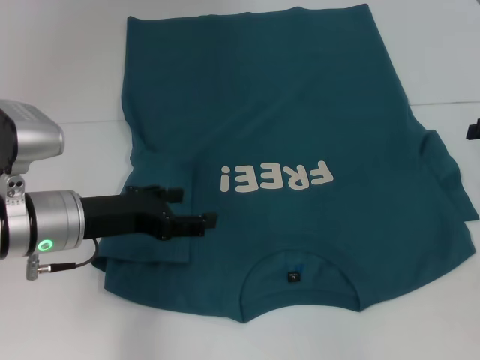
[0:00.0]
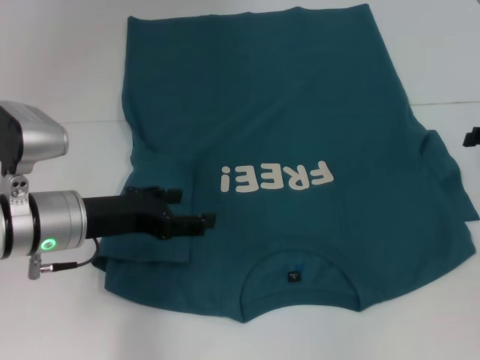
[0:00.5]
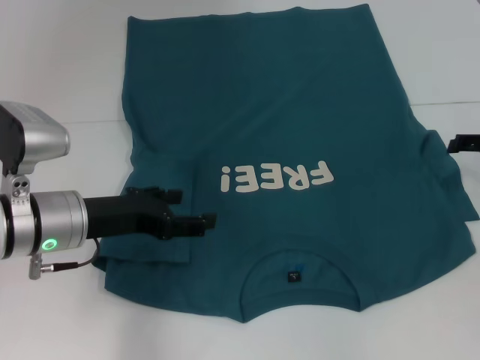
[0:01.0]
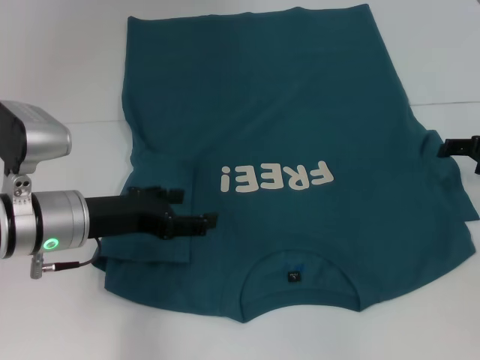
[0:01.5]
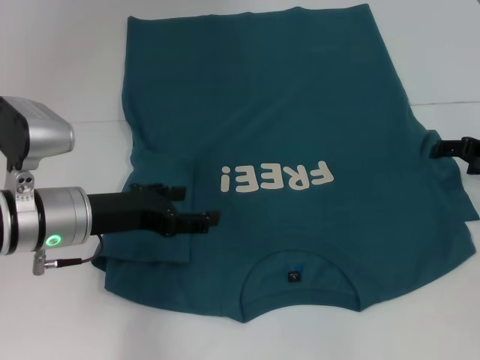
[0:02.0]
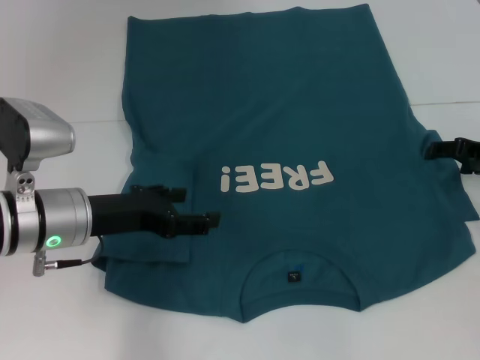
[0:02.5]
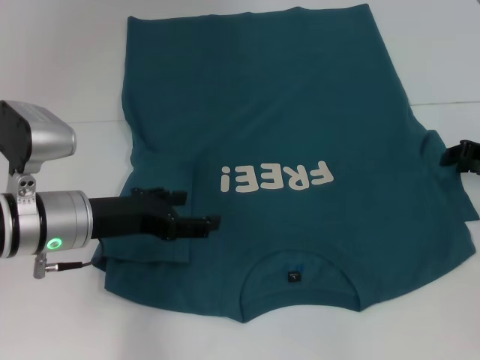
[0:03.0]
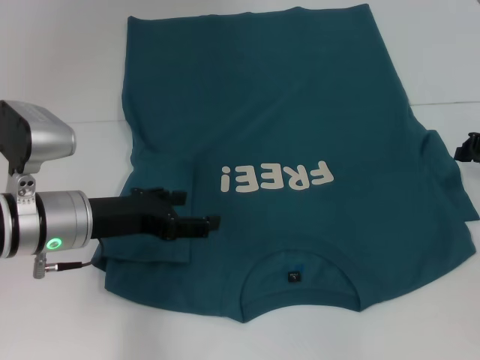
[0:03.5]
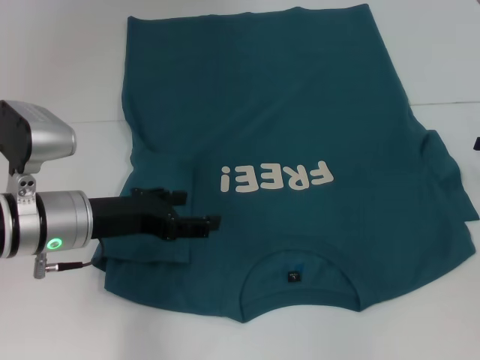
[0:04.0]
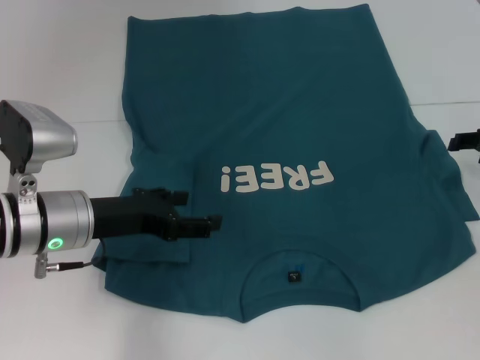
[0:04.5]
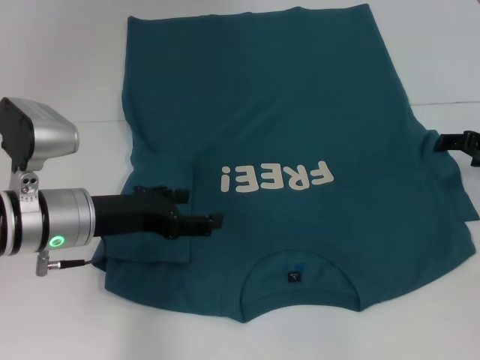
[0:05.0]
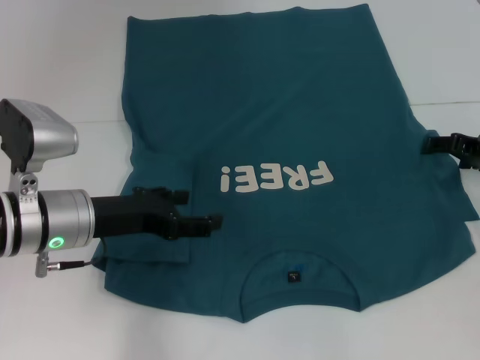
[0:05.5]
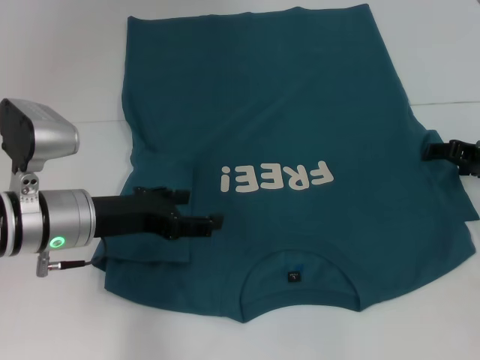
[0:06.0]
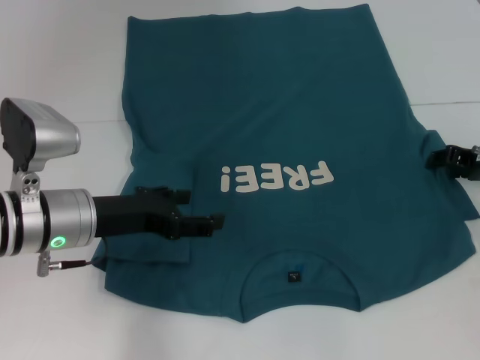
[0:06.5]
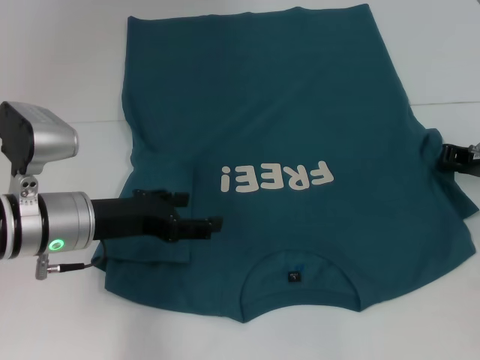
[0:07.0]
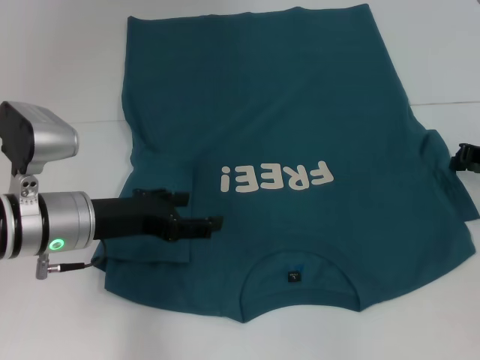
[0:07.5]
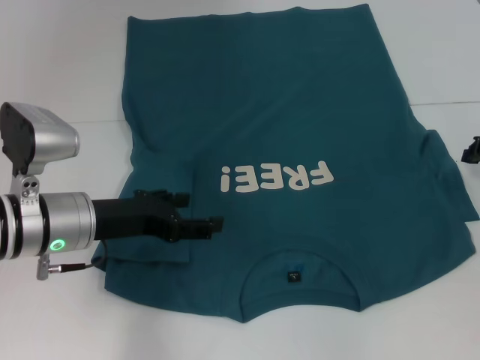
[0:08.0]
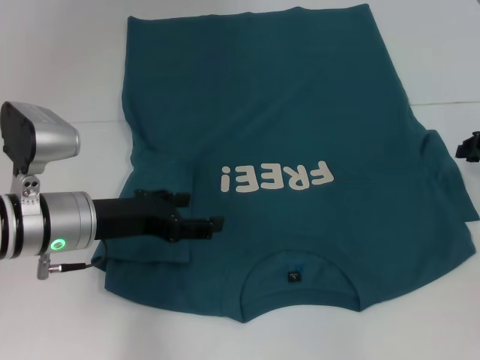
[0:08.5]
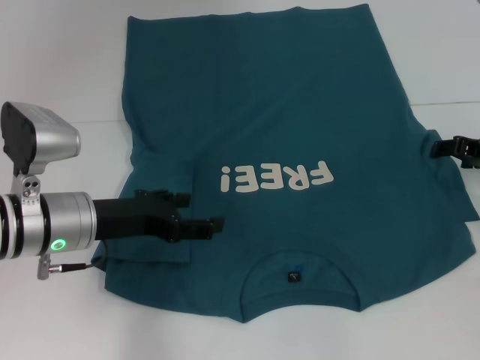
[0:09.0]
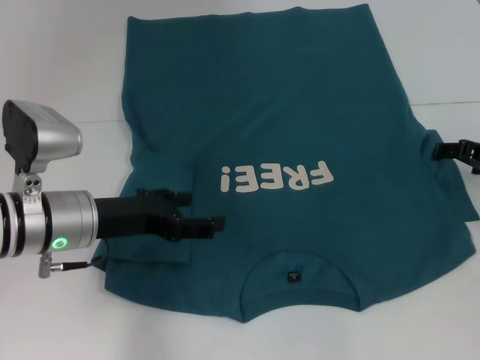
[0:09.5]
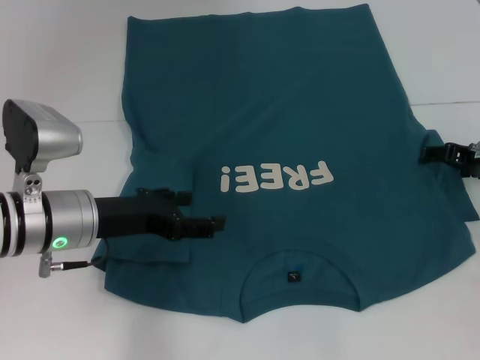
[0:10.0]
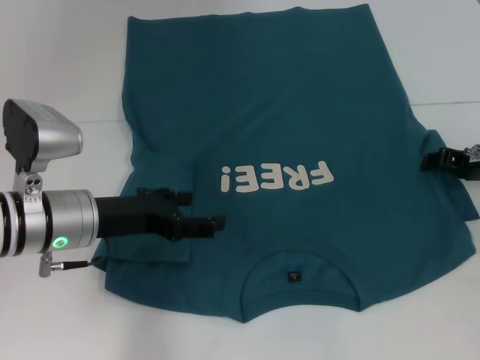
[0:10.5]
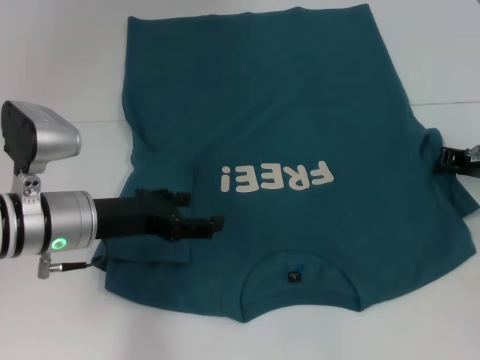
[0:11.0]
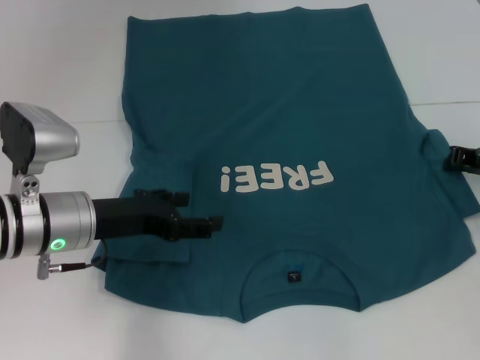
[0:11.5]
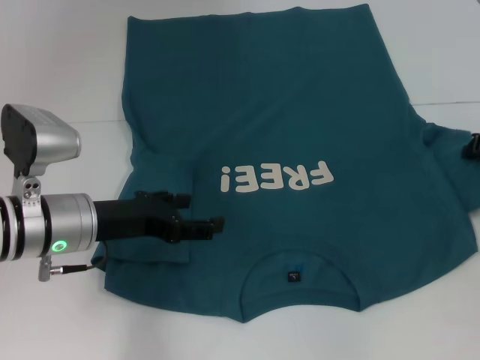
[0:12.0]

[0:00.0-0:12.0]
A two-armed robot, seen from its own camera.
0.0 to 2.0 s: The right gripper is displaced downward by roughly 5 cm.
2.0 to 4.0 s: The right gripper closes its fingers.
4.0 to 6.0 s: The right gripper shifts by approximately 5 cm, and opens up.
6.0 to 8.0 s: The right gripper closes its fingers.
8.0 to 10.0 s: The right gripper opens its fingers.
10.0 to 12.0 s: The right gripper closes.

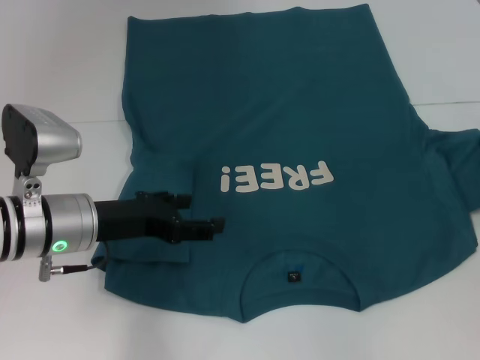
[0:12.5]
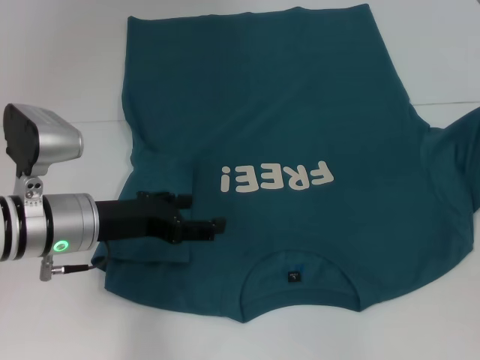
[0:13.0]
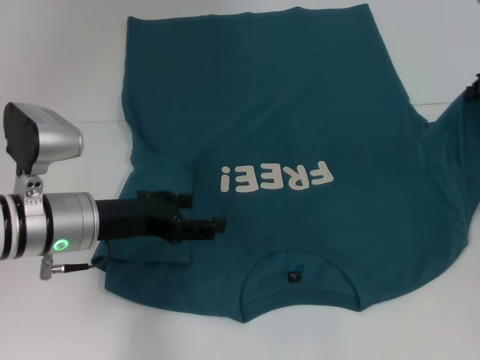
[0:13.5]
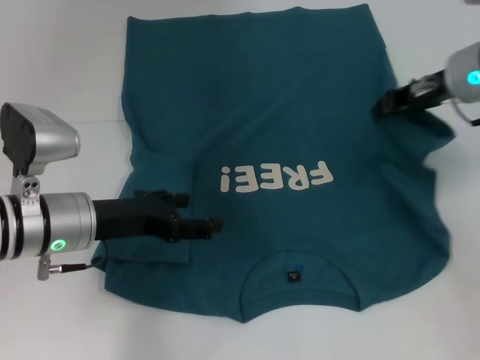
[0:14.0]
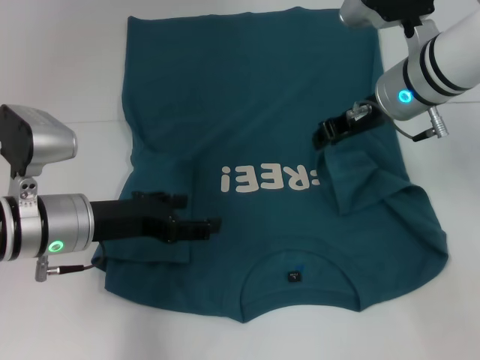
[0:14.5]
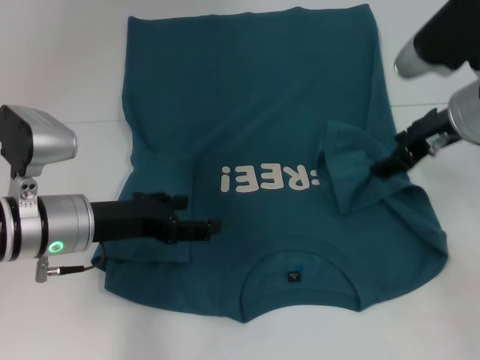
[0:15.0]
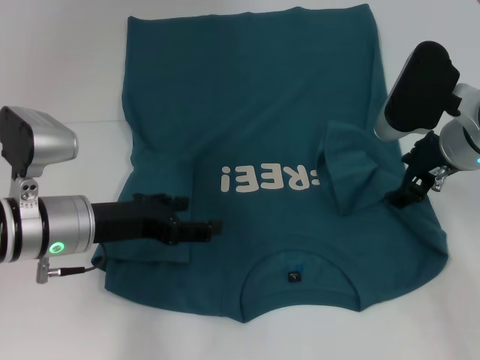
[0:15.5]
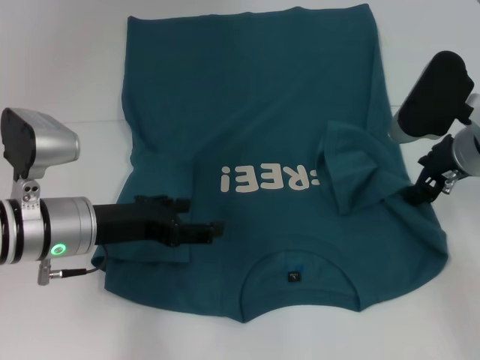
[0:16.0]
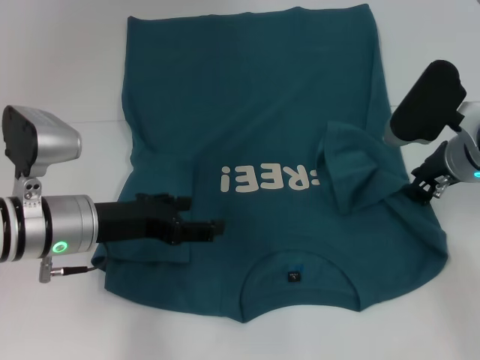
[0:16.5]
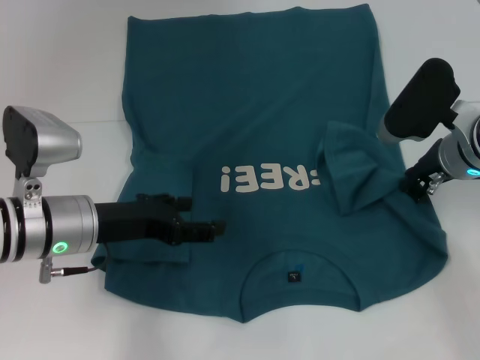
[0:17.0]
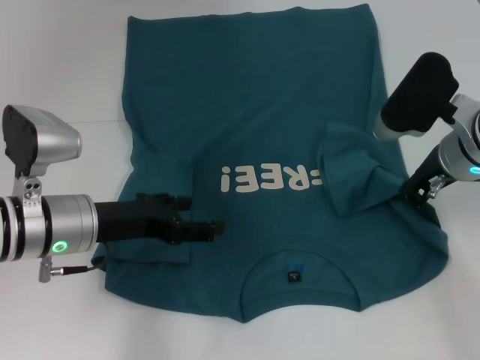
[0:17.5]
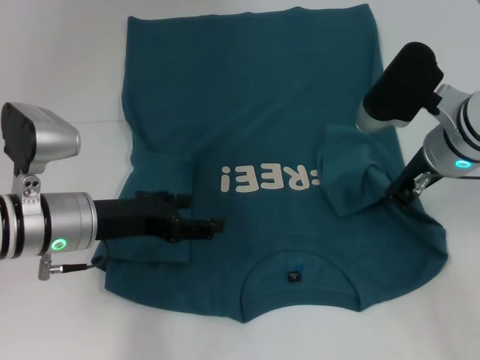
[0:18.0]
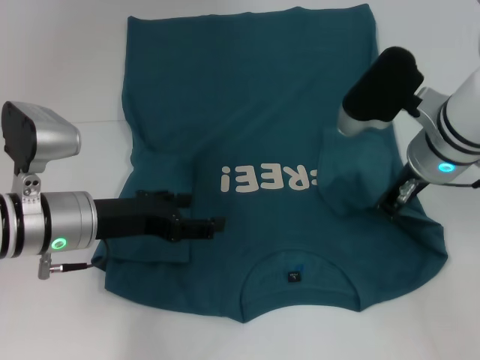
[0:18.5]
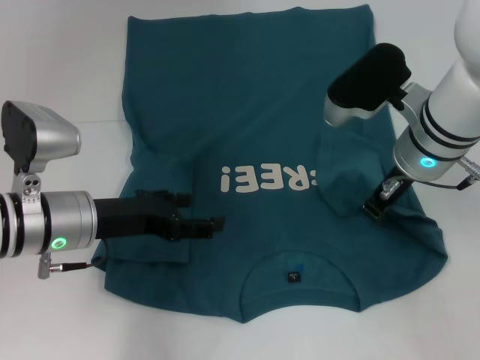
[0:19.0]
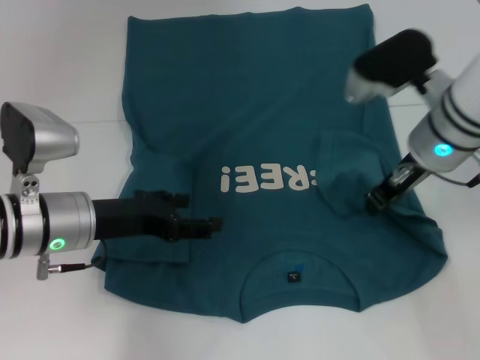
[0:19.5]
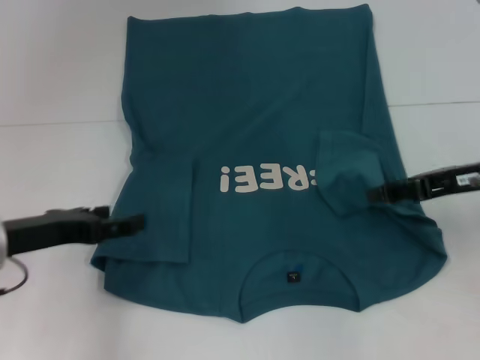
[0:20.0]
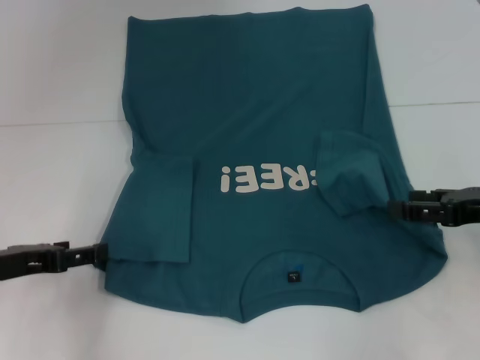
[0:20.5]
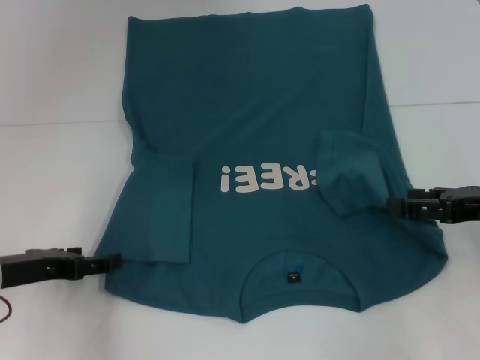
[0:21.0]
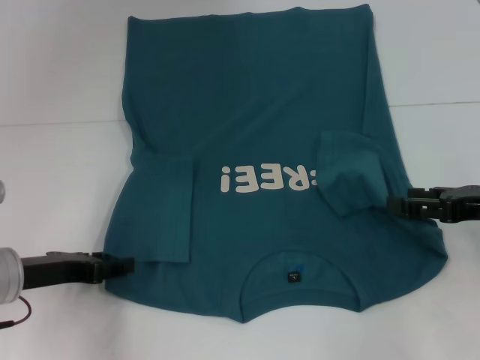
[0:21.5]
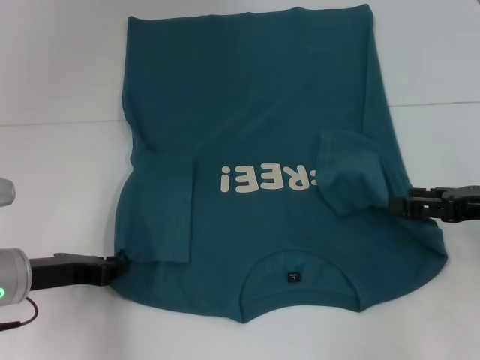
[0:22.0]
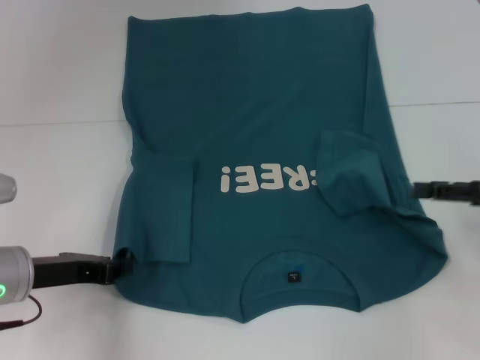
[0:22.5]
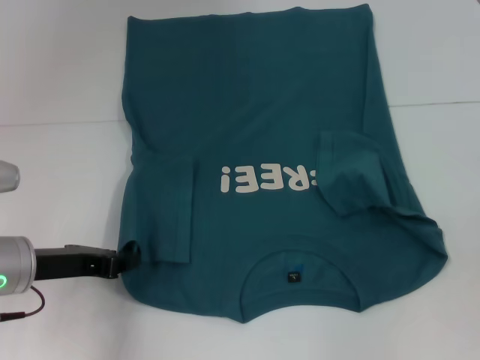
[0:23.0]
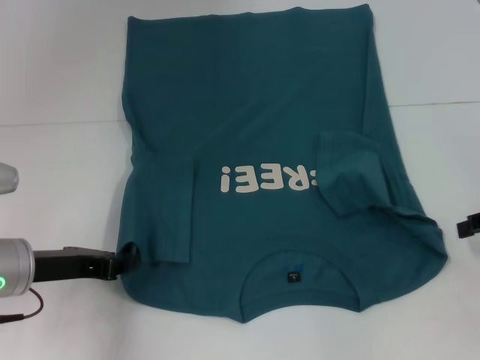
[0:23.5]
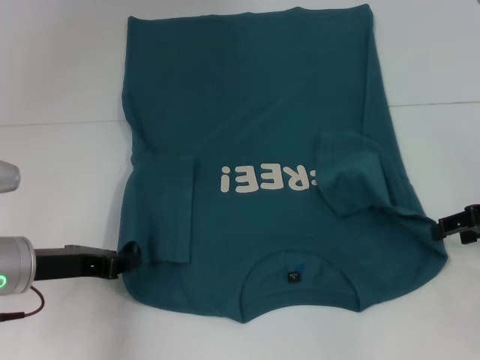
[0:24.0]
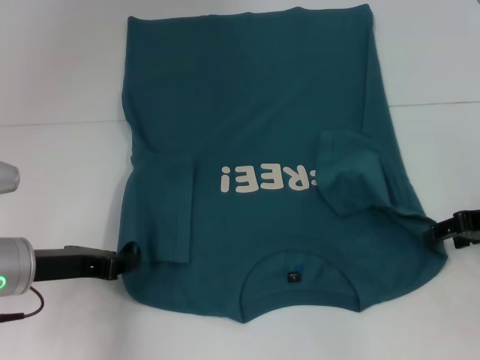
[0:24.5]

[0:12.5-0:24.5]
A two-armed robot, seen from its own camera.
Step, 12.5 to 19.5 s: Fold the bottom right sleeve to the right.
Step, 20.0 to 24.0 s: Grab the bottom left corner with your left hand.
12.5 to 14.5 s: The right gripper moves to the left, roughly 20 cm.
14.5 to 16.5 s: The right gripper shifts approximately 10 cm to the right and downward, and opens up.
16.5 to 18.5 s: The right gripper is displaced to the left by approximately 5 cm, and closes.
18.5 to 20.5 s: The right gripper goes some 15 cm to the right and backward, and opens, while the left gripper moves to the left, some 10 cm.
20.5 to 22.5 s: The left gripper closes its fingers.
22.5 to 24.5 s: The right gripper moves forward, about 5 cm.

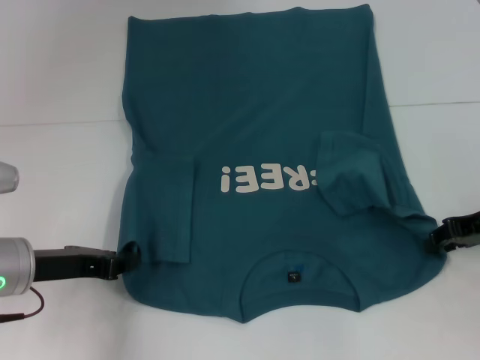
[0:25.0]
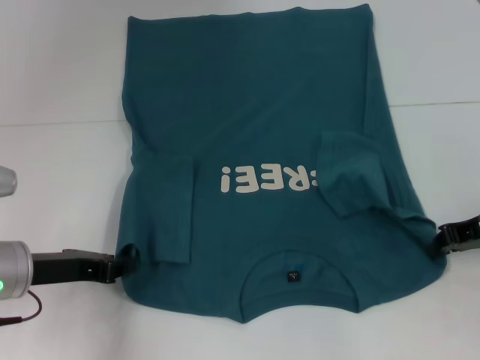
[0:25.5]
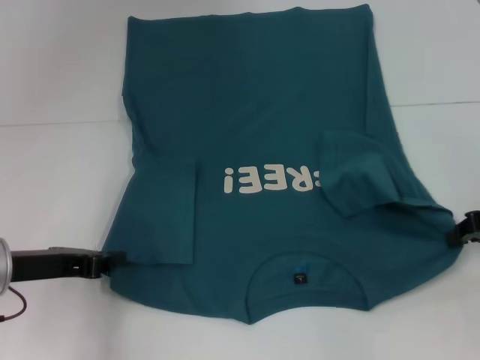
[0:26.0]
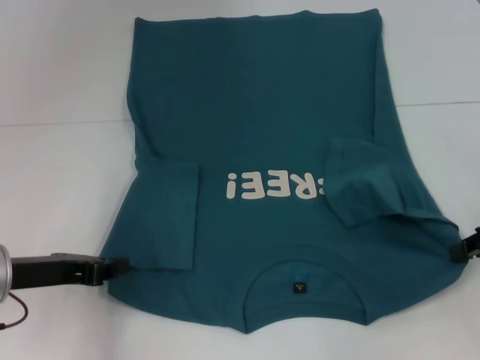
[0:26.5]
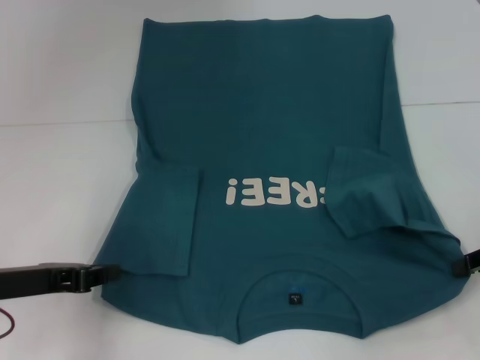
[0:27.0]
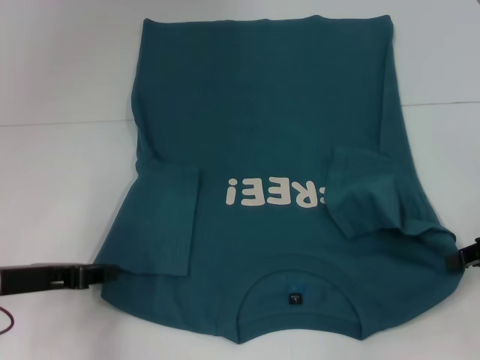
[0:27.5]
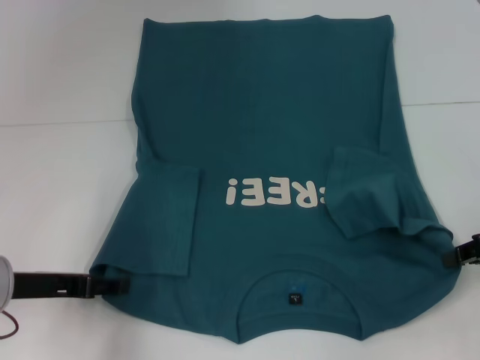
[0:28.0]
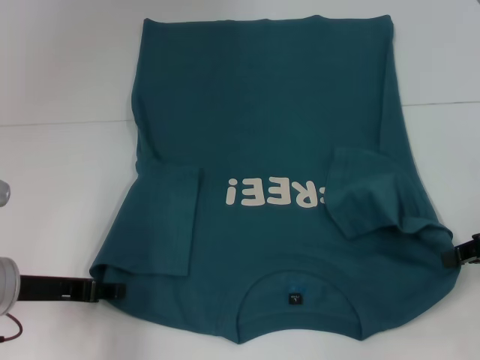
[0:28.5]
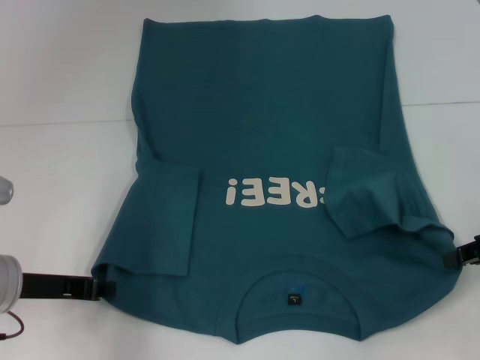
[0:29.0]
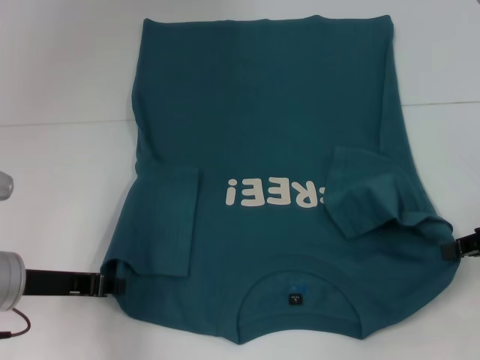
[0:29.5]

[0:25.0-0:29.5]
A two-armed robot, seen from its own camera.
Step, 25.0 to 26.0 s: Grab the bottom right corner with your right hand.
25.0 to 27.0 s: The right gripper heads backward, covering about 5 cm, and closes.
27.0 to 29.5 s: The left gripper opens, then closes again.
